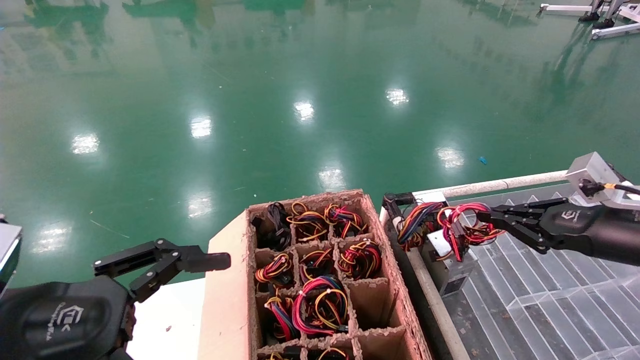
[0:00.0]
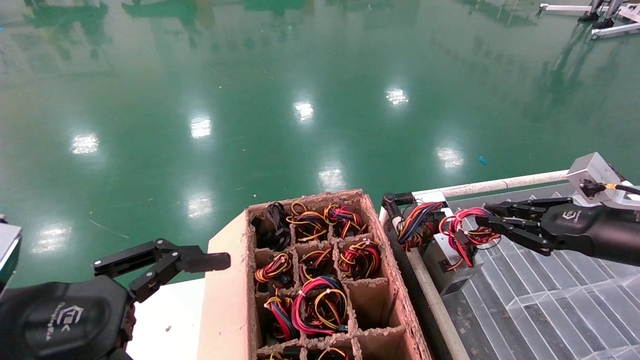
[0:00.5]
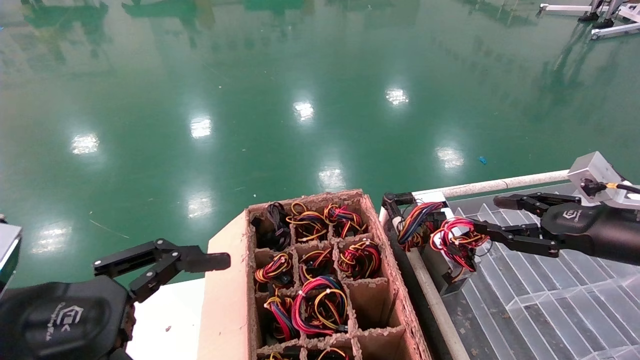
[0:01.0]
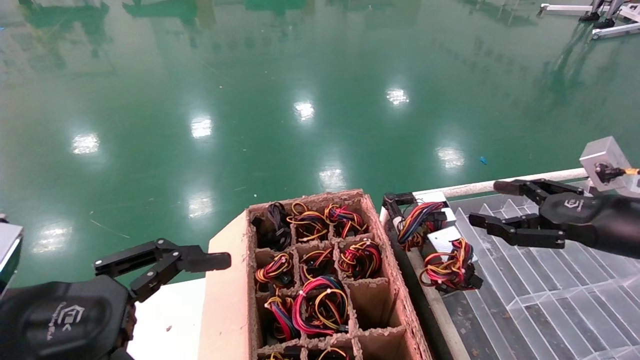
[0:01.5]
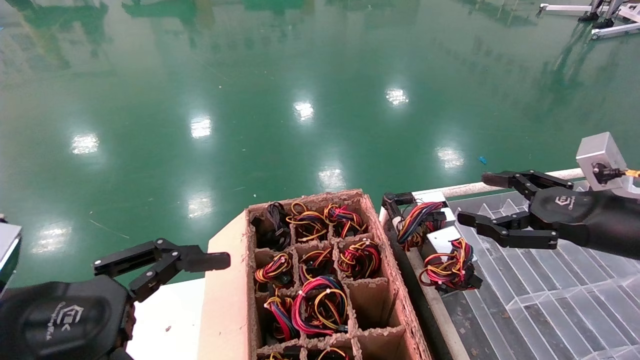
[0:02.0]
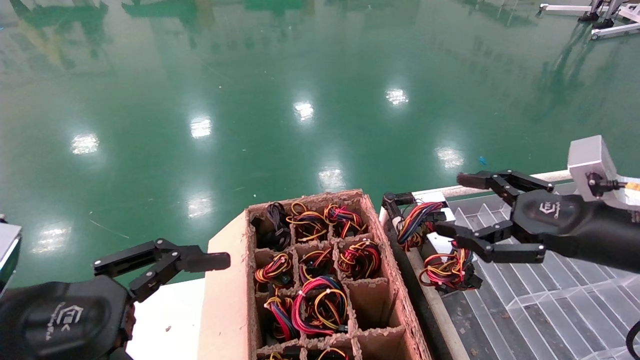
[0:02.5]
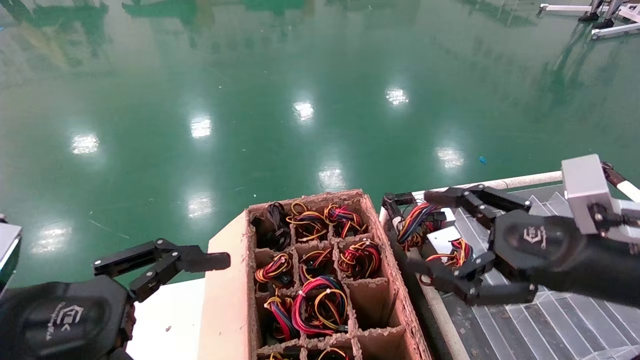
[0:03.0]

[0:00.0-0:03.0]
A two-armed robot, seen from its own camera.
0:00.0 to 0:01.5: The right gripper opens.
0:01.5 to 0:03.0: The right gripper goes some 10 cm to the left and backward.
